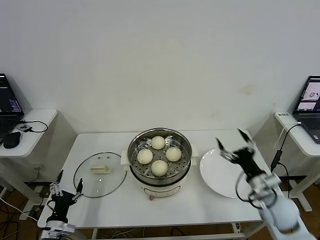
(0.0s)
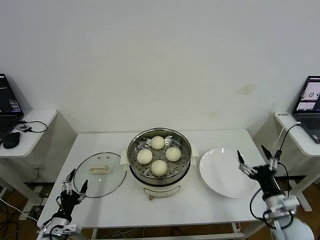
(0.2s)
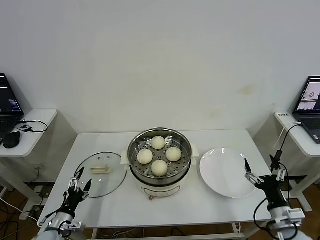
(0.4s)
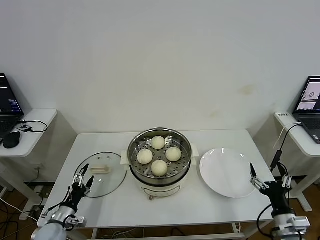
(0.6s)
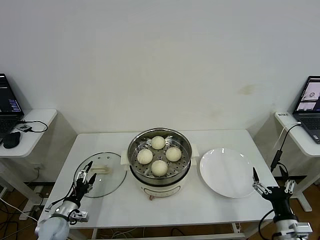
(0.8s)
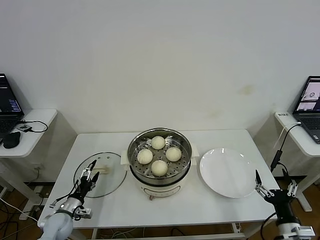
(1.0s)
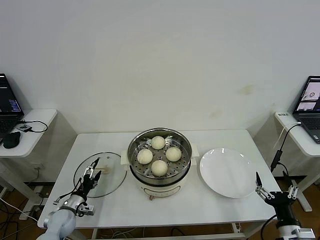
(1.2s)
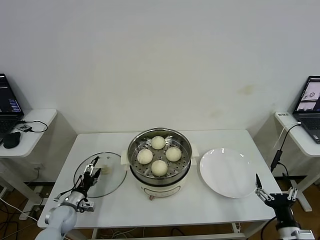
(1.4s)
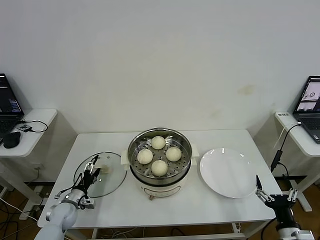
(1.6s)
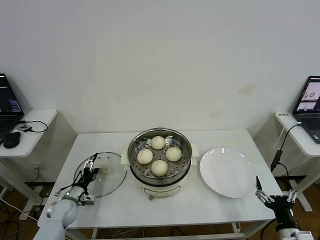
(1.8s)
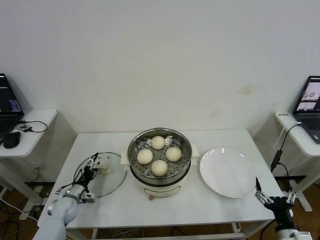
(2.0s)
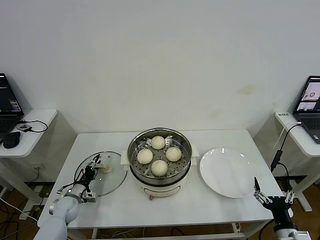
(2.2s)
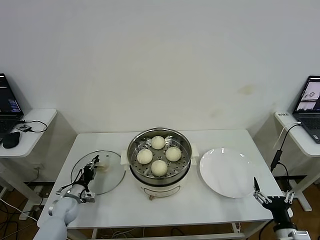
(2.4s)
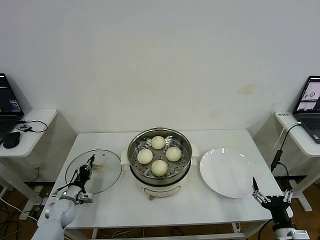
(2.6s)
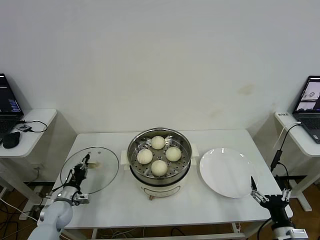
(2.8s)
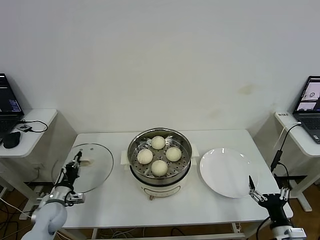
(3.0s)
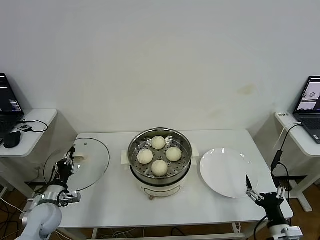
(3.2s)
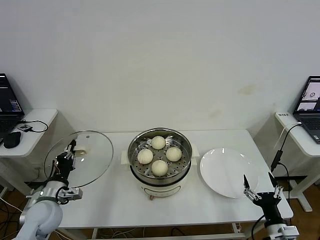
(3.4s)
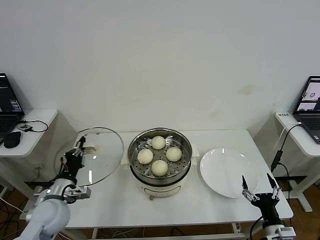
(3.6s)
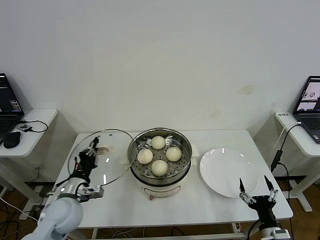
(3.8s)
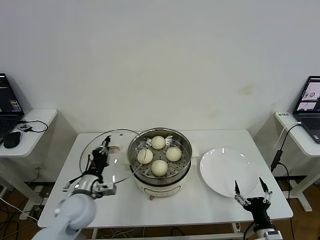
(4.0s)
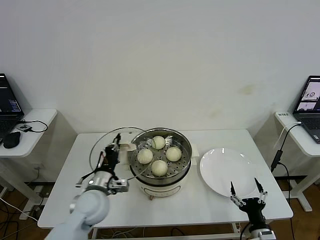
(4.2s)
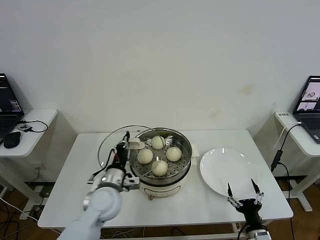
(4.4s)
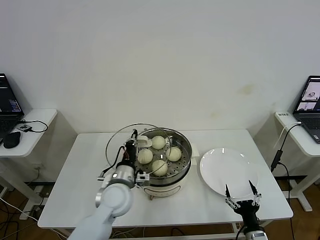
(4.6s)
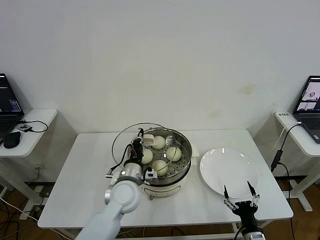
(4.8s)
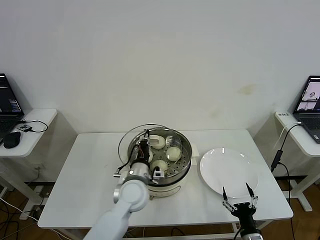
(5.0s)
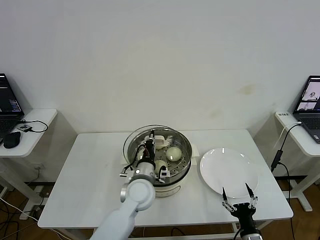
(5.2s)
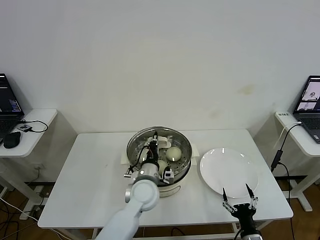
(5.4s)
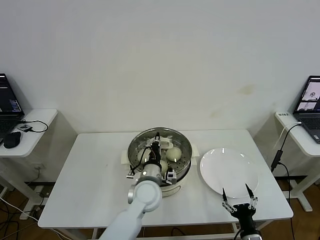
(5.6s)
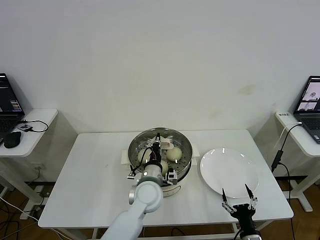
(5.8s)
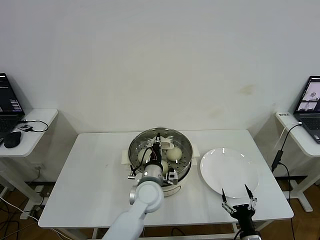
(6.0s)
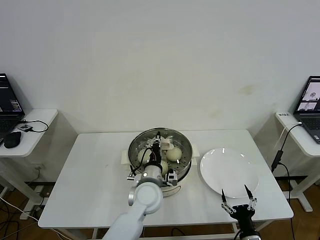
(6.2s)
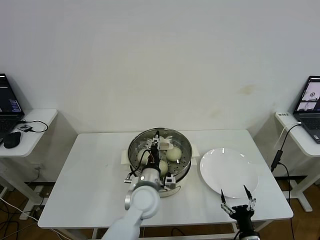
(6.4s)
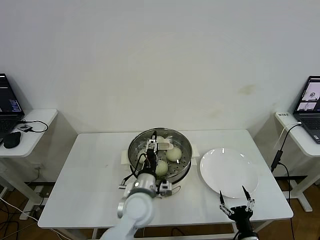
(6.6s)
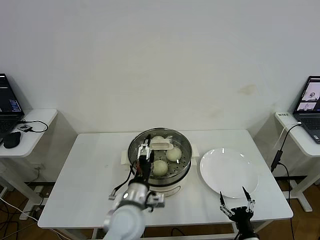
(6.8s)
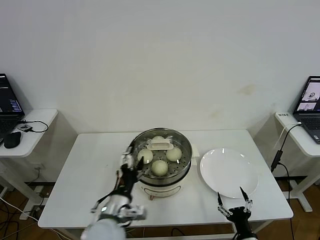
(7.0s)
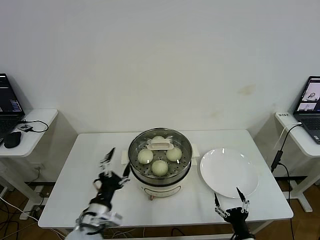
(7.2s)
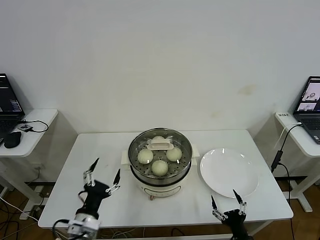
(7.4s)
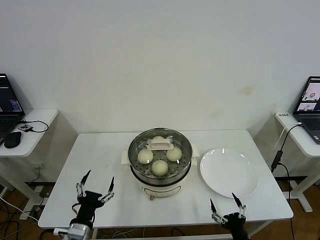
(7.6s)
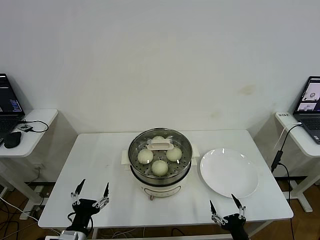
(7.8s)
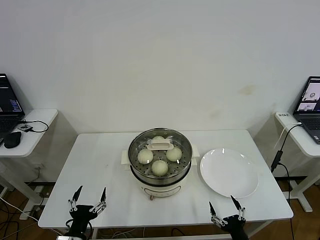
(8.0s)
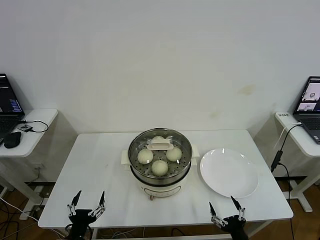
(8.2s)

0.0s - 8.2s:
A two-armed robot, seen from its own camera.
Step, 0.0s - 2.4s: Grasp the pot lid with left gripper.
Step, 2.6s - 5.6s: Place the pot lid on the steamer with left gripper.
0.0s - 1.6s: The right gripper heads backward and downward, covering roughly 15 cm. Meanwhile the left gripper goes approximately 15 cm forward.
1.6s - 3.2s: The left gripper heads upward, covering roughly 10 cm, and closes its fingers.
3.2s - 5.0s: The left gripper is displaced to the right by some 30 cm. Meanwhile the right gripper is displaced to the left and downward by approximately 10 cm.
5.0s - 6.6s: The left gripper opens its fingers.
6.6s - 8.2s: The left gripper goes about 30 cm to the left and backward, and opens its fingers.

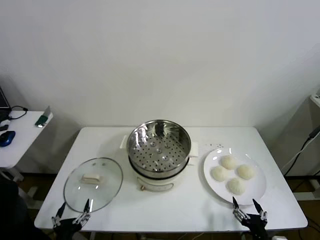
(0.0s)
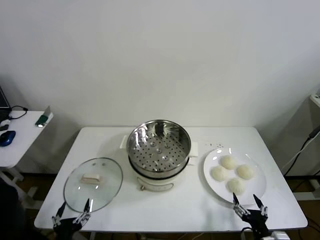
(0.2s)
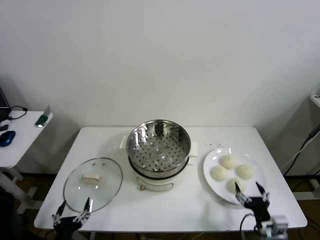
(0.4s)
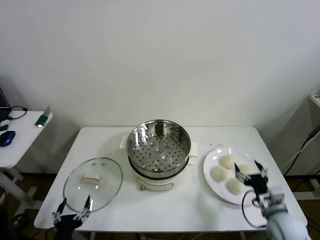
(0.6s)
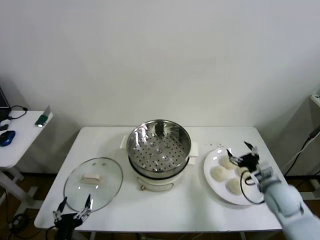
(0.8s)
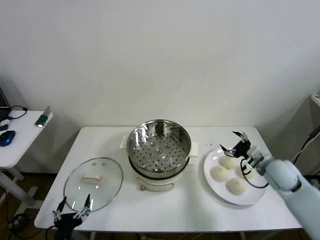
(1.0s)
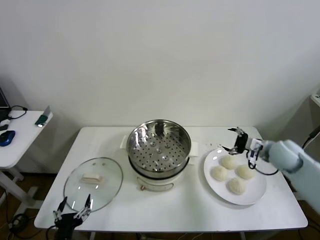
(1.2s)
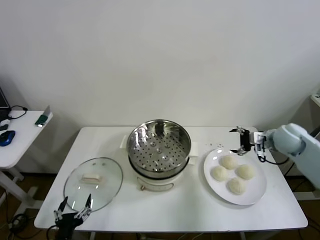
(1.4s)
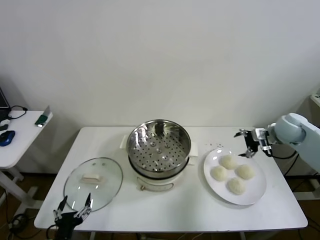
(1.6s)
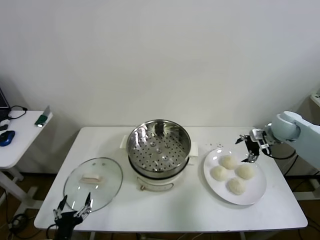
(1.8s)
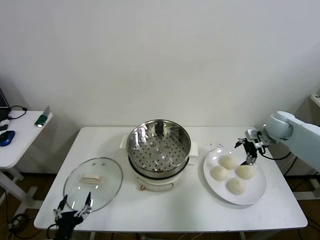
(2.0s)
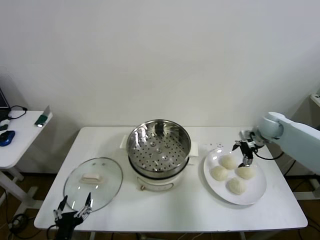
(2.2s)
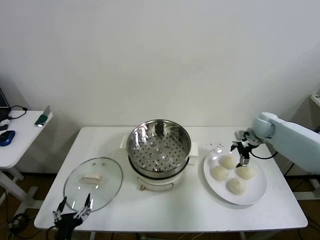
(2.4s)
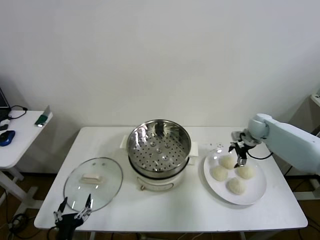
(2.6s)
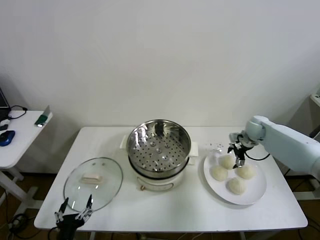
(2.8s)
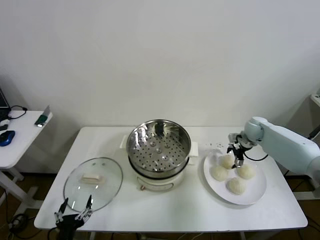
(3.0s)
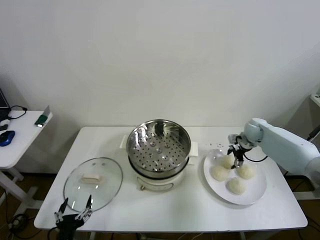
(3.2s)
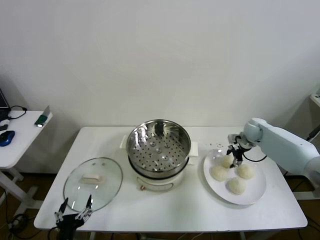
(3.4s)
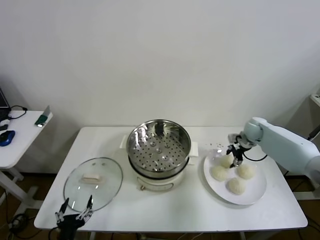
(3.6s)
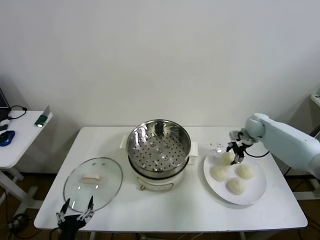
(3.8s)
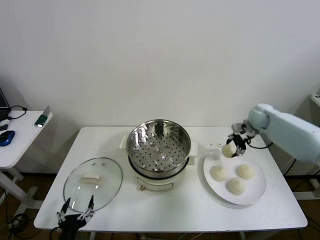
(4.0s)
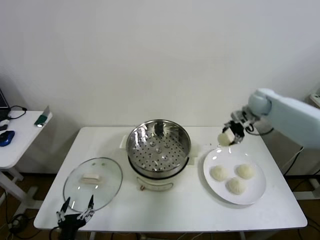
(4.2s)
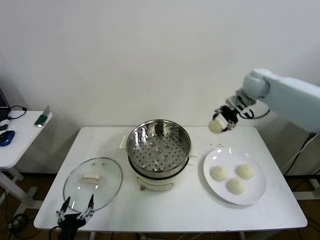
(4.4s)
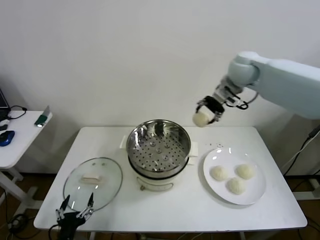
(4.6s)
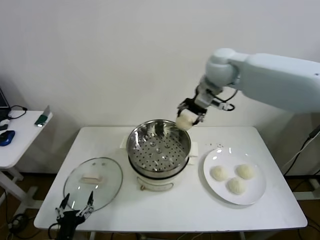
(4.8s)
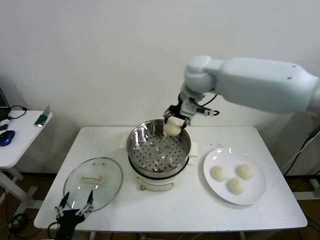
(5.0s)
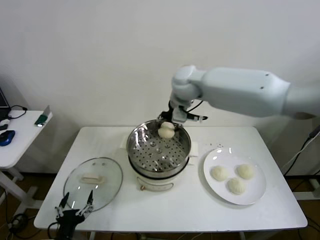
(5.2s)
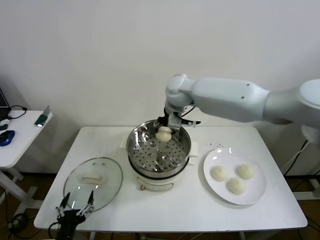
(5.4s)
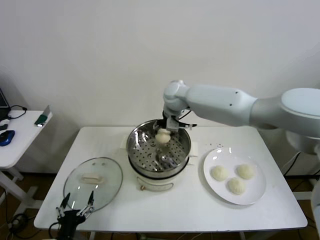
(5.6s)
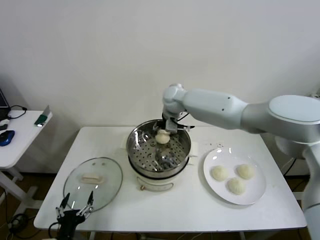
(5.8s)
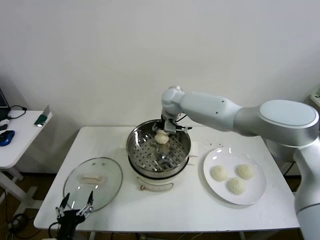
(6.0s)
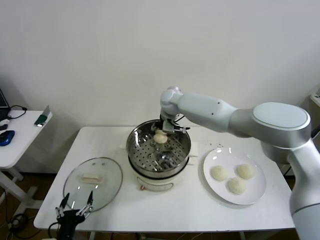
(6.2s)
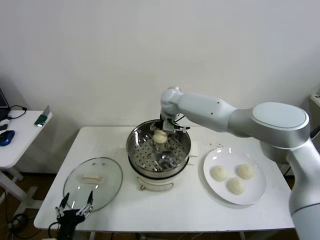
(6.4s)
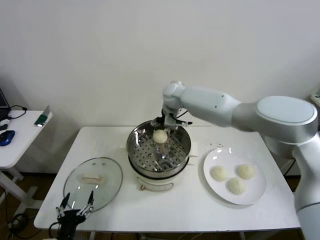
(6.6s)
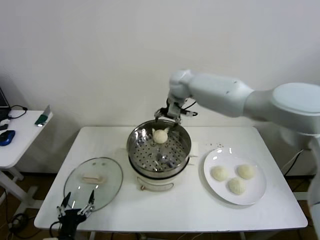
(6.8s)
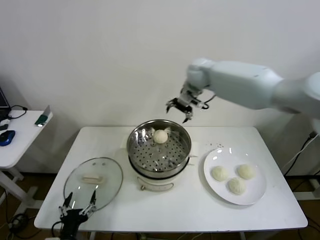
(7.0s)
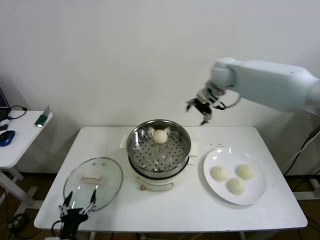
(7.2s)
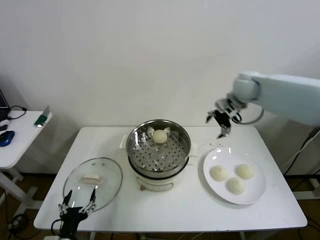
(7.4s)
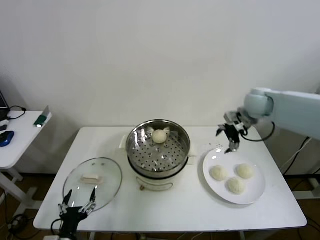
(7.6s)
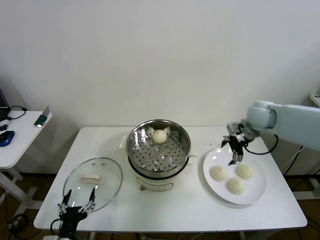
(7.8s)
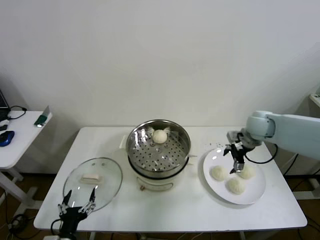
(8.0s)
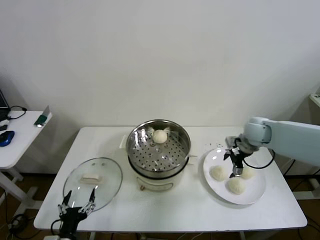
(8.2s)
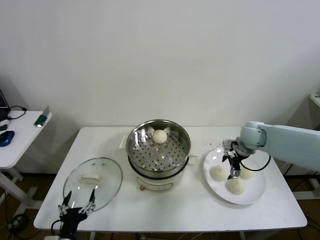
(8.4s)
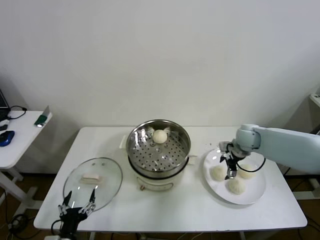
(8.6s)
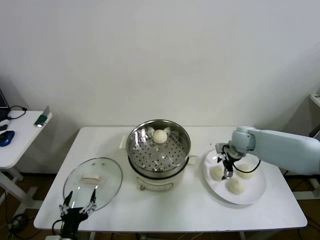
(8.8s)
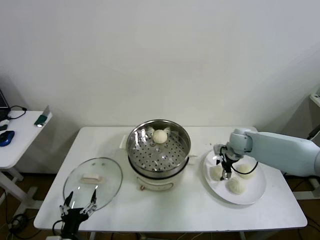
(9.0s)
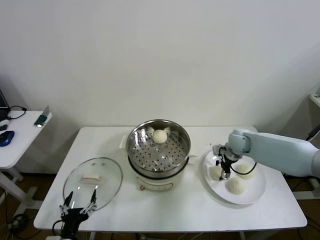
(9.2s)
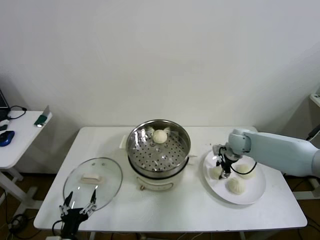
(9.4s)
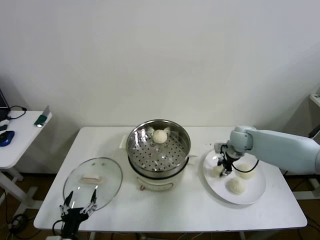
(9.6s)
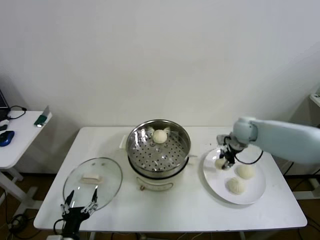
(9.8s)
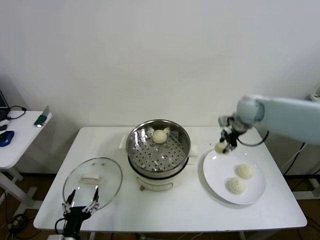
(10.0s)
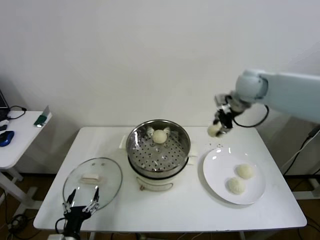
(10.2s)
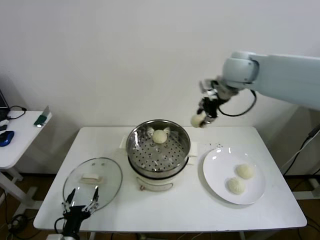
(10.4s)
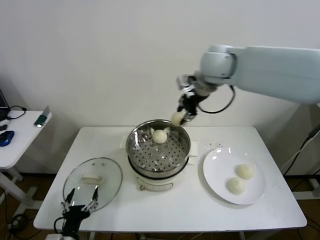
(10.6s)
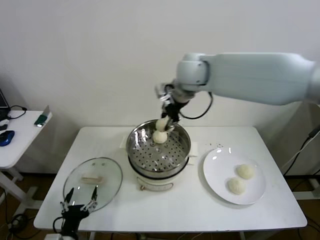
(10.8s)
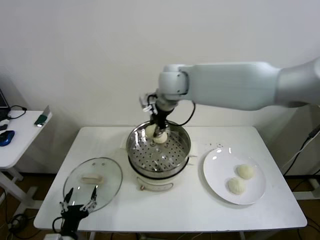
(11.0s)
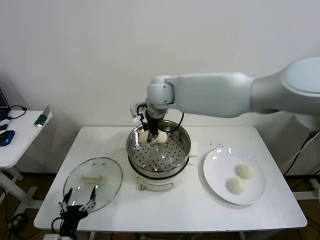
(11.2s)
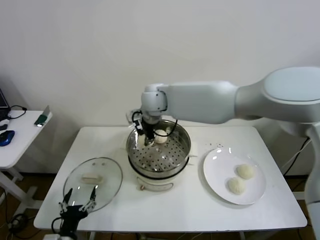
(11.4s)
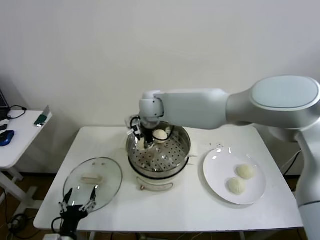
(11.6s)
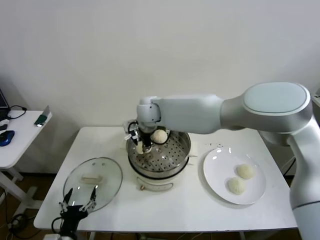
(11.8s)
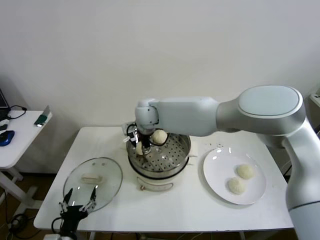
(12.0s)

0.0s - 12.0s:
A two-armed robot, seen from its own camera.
Step, 0.0s - 3.2s: Grasp the baozi in the plate with right gripper.
Step, 3.4s - 6.4s: Place the baozi on the steamer with right gripper.
Step, 6.8s - 9.0s: Grasp the baozi in the plate with right gripper.
1.6s - 3.0s: The right gripper moves downward and forward, approximately 10 cm.
3.0s - 4.4s: The right gripper goes roughly 30 cm upward and to the left.
4.4s - 6.0s: The right gripper travels to the left and downward by approximately 25 cm.
6.0s - 7.6s: The right gripper moves to the right, about 30 cm, and opens up.
7.6s - 9.0s: The right gripper heads downward, covering approximately 15 cm.
9.0s - 10.4s: The right gripper moves upward and to the left, approximately 35 cm, and closes.
10.4s - 12.0s: The right gripper goes some 30 cm to the left and downward, and opens its fingers.

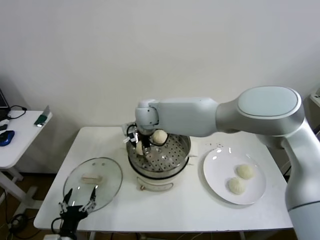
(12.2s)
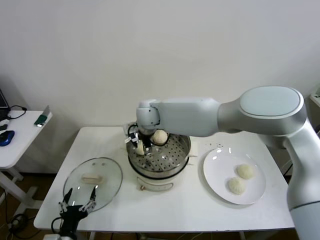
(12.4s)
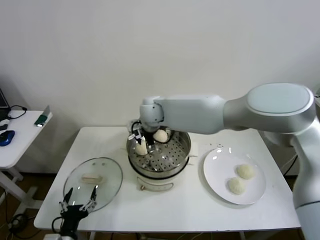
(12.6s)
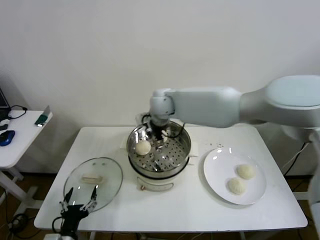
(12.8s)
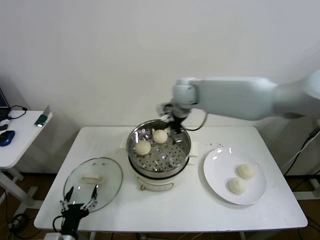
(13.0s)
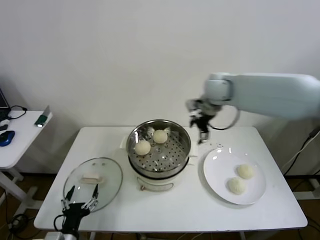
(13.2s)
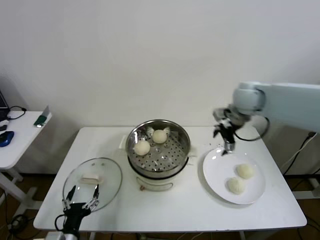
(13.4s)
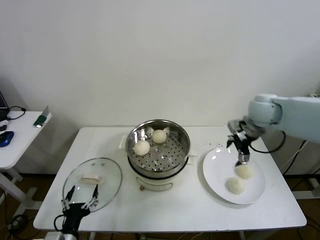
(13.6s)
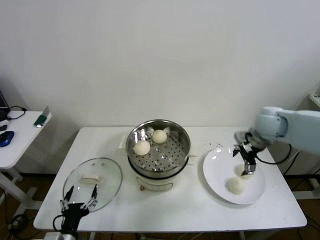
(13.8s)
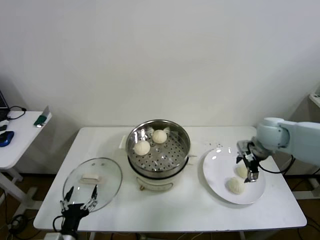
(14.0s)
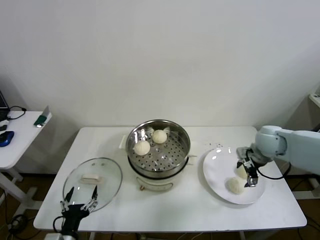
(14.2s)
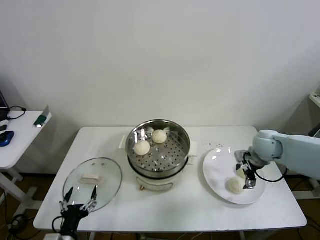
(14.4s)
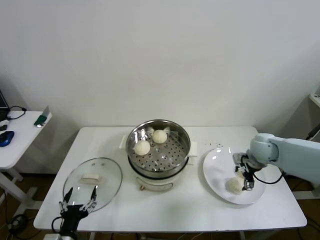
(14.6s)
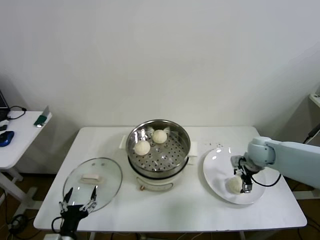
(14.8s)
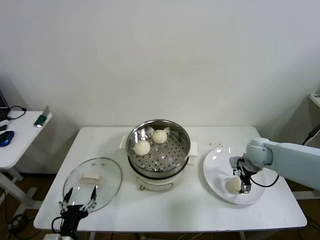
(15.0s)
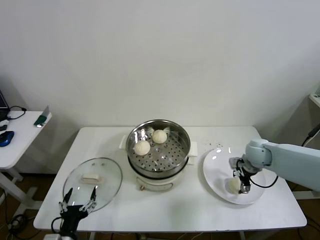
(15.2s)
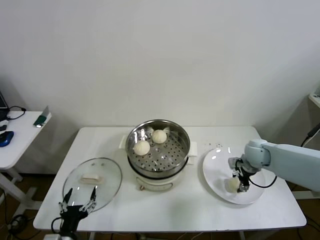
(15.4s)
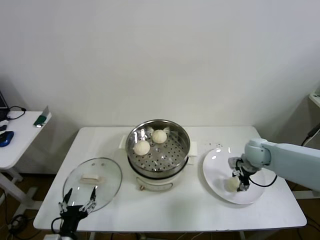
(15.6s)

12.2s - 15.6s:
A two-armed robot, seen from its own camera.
Step, 12.6s - 15.4s: Grasp the baozi in the plate with right gripper.
12.2s - 13.8s: The right gripper shifts about 40 cm to the right.
13.8s - 15.6s: The right gripper heads downward, covering approximately 10 cm, and closes.
